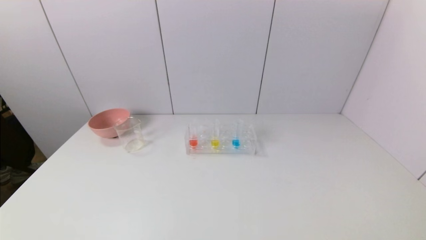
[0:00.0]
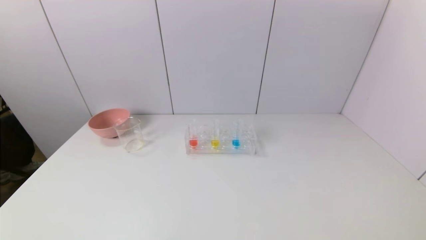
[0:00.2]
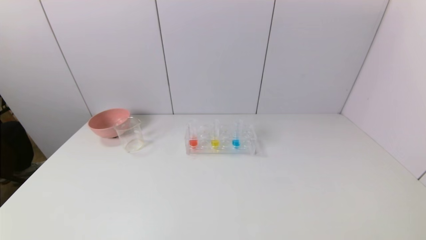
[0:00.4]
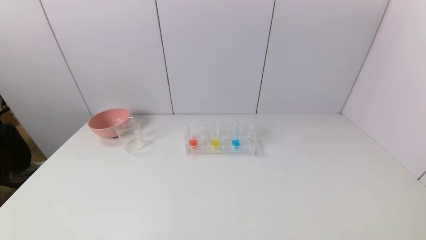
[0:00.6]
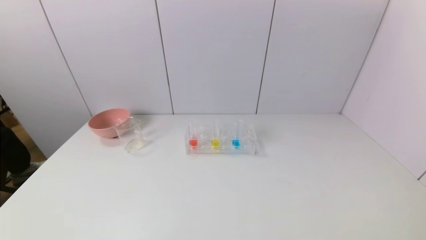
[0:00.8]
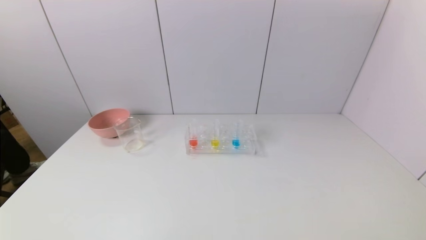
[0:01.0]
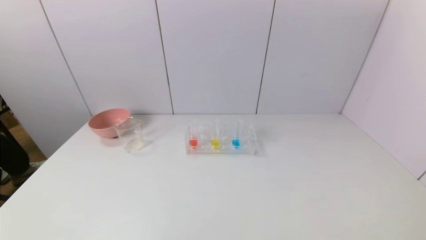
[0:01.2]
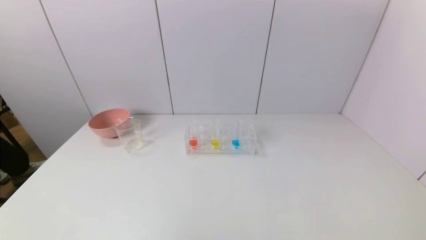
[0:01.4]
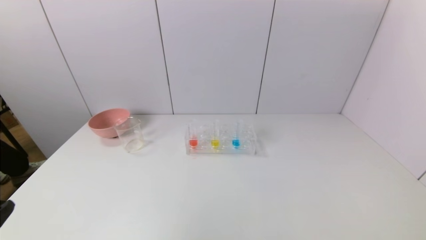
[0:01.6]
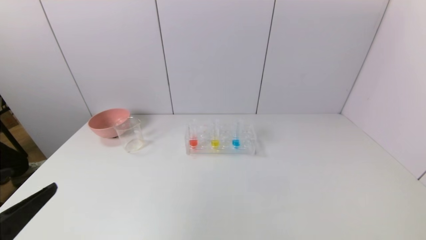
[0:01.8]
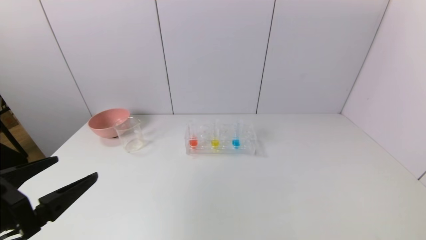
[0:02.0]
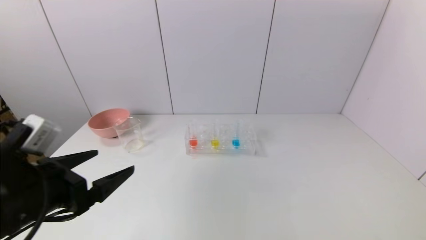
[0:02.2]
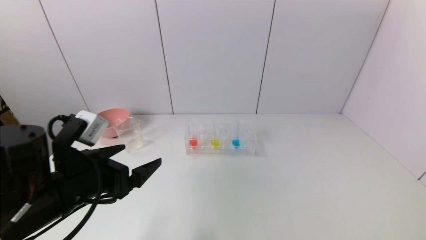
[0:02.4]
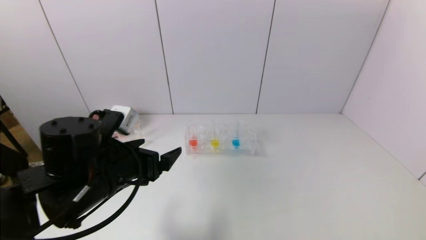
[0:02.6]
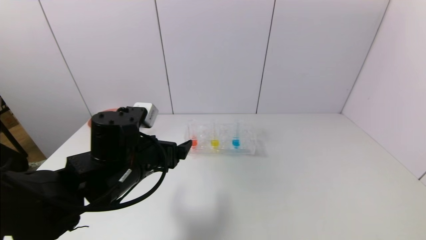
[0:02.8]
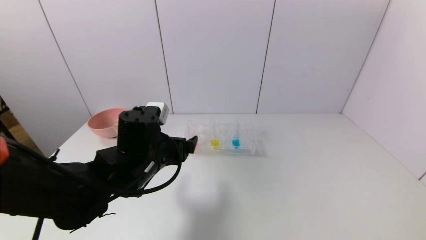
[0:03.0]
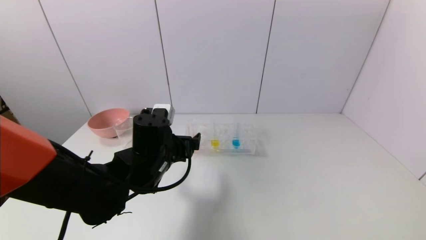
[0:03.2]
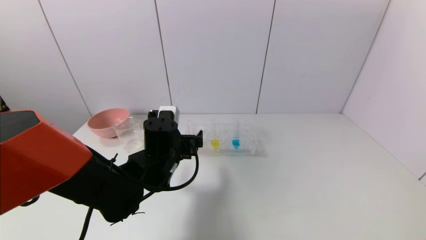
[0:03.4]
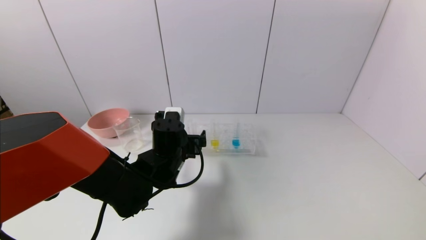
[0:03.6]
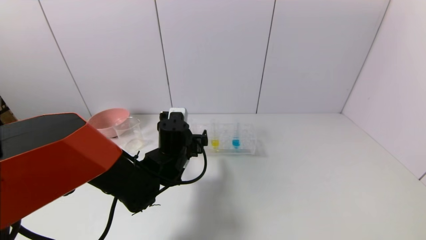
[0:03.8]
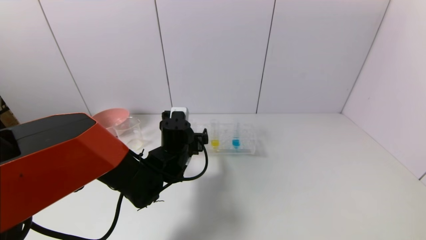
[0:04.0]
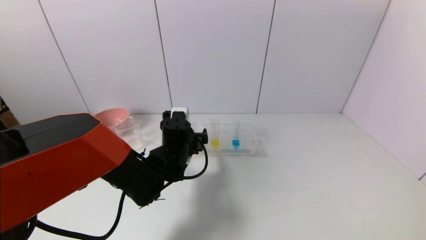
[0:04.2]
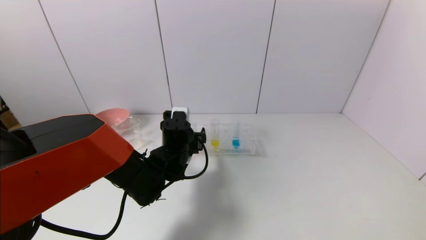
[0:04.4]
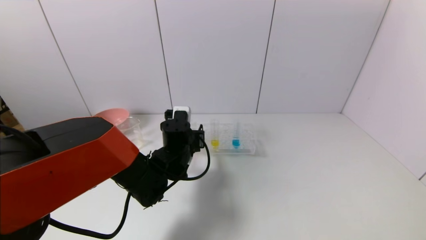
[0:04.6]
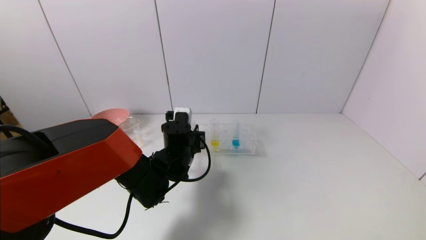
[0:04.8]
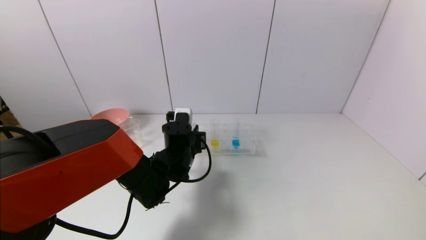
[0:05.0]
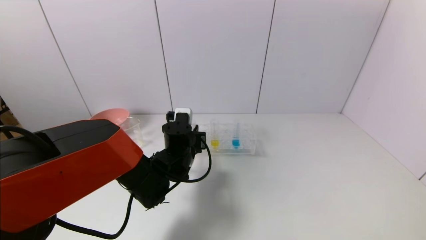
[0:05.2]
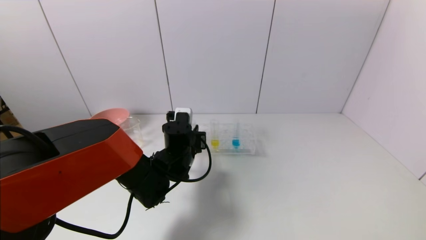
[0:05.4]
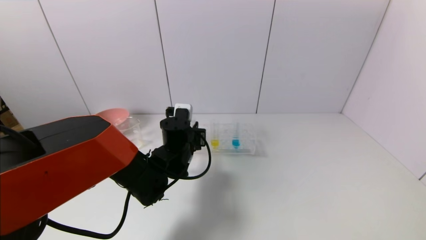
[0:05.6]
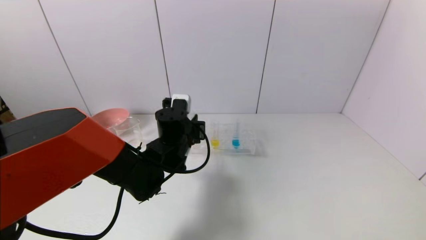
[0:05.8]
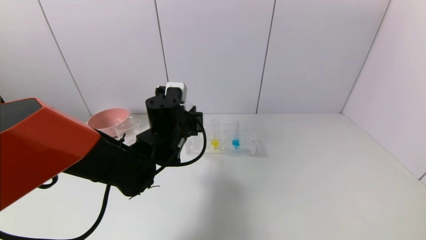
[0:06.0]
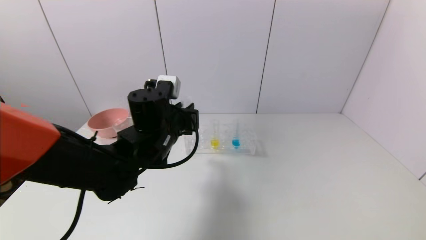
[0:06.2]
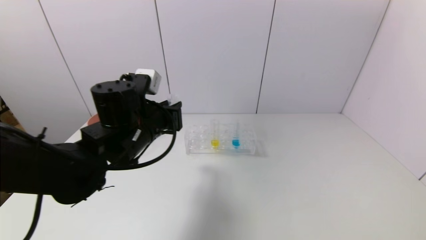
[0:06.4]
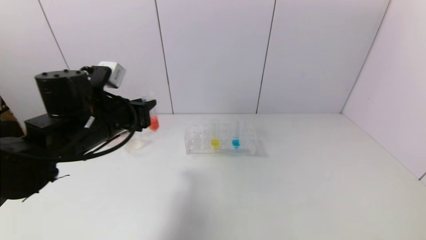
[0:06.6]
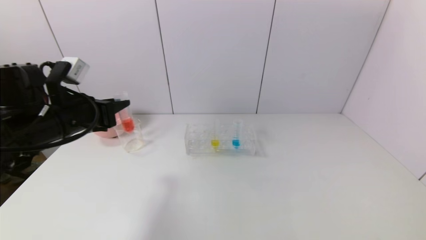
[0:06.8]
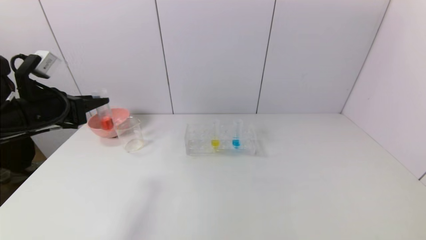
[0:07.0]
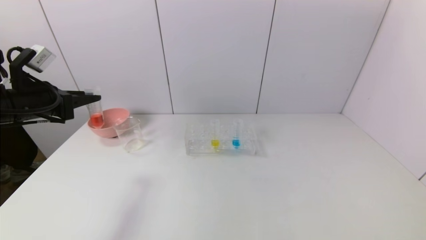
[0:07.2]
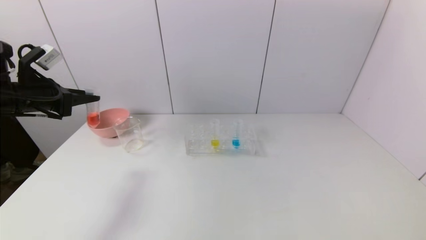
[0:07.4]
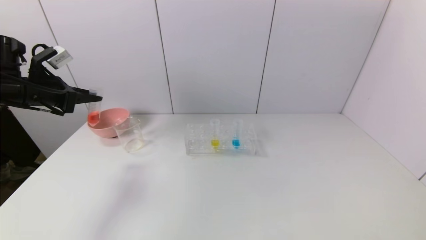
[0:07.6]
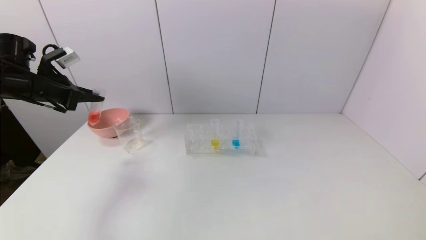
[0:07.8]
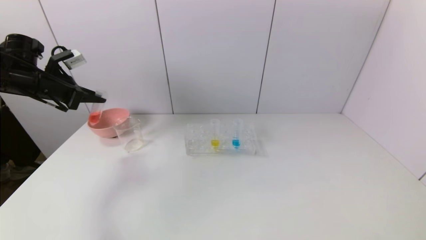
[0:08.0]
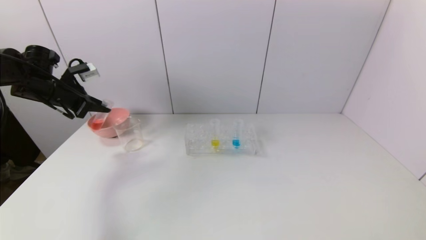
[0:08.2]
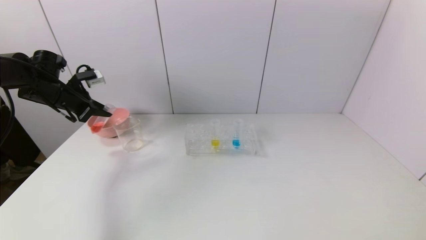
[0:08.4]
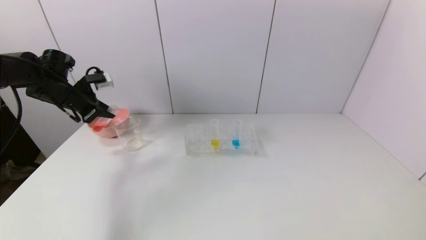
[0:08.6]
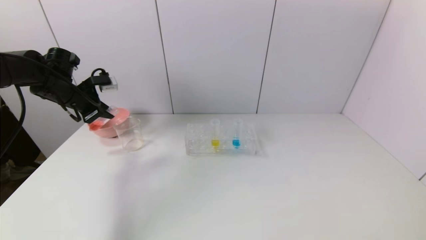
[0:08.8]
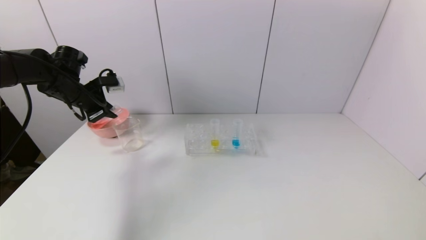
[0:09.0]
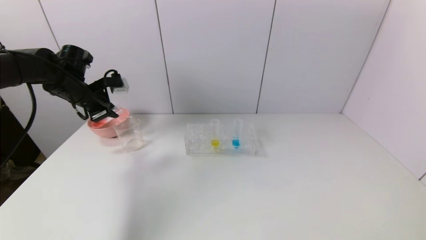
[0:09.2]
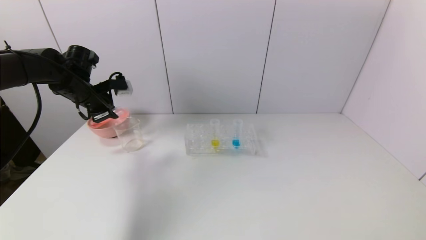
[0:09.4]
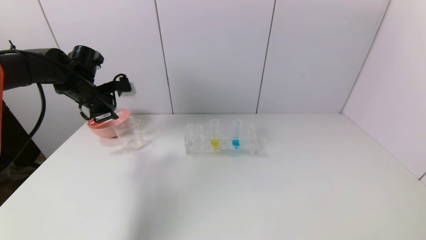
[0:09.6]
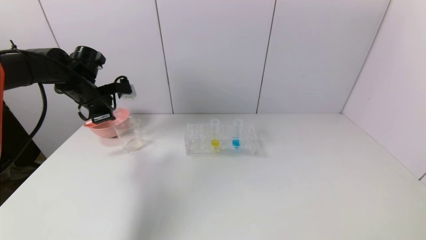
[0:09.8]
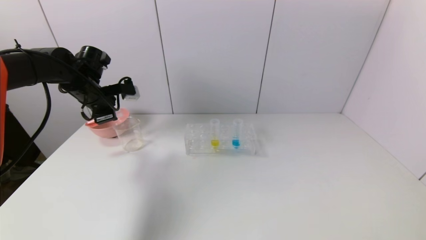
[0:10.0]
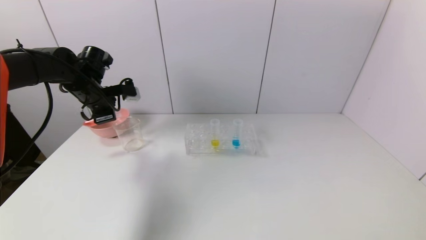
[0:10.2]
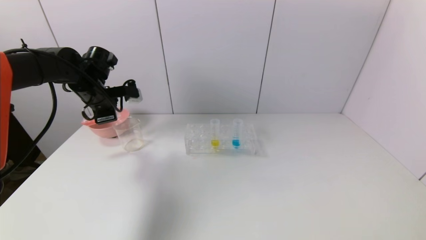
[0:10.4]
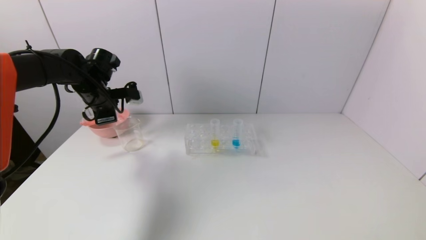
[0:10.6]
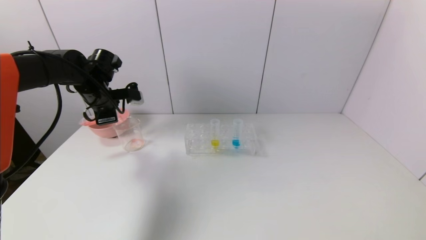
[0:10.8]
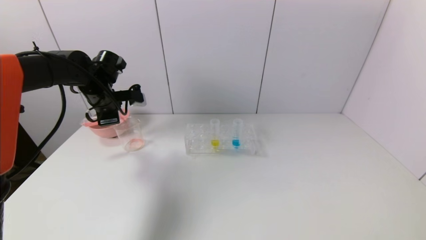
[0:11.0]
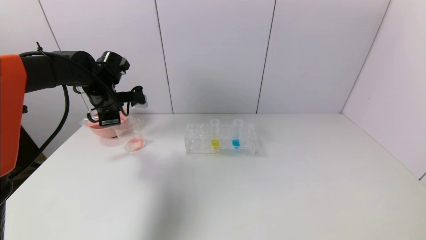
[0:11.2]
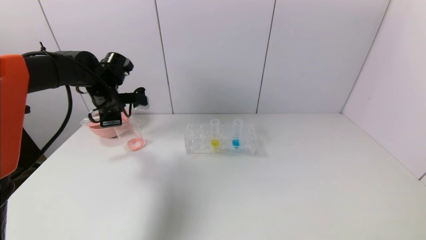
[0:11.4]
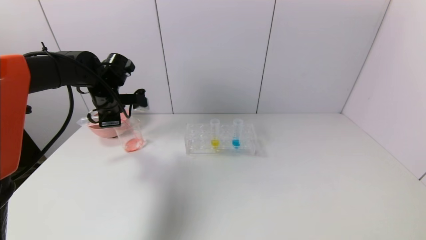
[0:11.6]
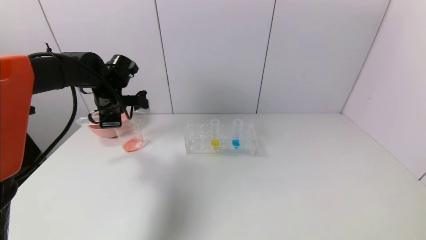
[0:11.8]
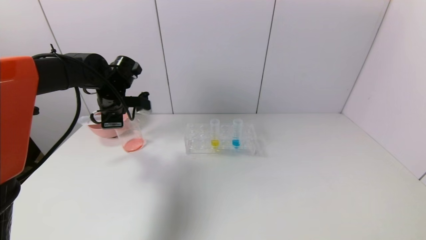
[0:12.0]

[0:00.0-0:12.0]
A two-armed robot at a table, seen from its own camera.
Task of the whole recording: pick up the test tube with yellow pigment and the test tube with red pigment by grippers and pour them into the beaker.
Step, 0:00.0 to 0:05.0: Grasp the red reagent with the left gripper.
0:00.0 to 0:01.6: The left gripper moves upward, approximately 10 cm.
0:01.6 to 0:03.0: The left gripper shifts some 30 cm forward and to the right.
0:03.0 to 0:04.4: The left gripper is displaced forward and downward by some 10 cm.
0:04.4 to 0:06.0: The left gripper heads upward, covering approximately 5 cm, and closes up.
0:06.0 to 0:07.6: The left gripper goes about 30 cm to the left.
0:07.6 to 0:09.0: The left gripper moves forward, roughly 10 cm.
0:09.0 to 0:10.4: The left gripper moves to the right, approximately 5 cm.
0:10.4 to 0:12.0: The grippers move only a little.

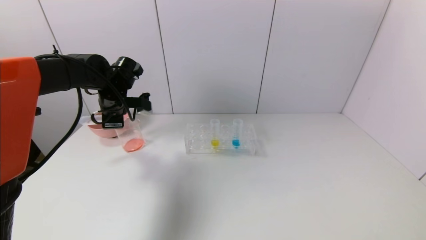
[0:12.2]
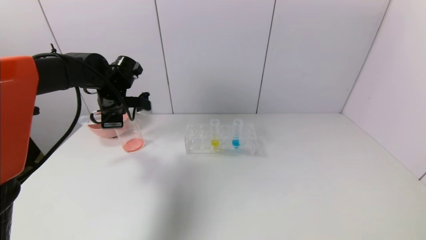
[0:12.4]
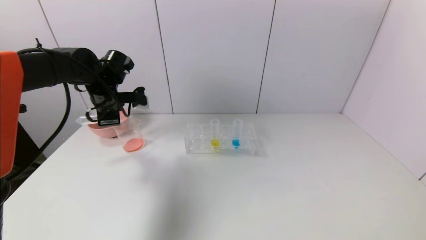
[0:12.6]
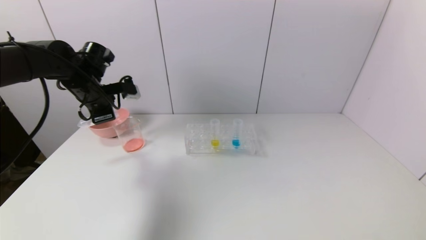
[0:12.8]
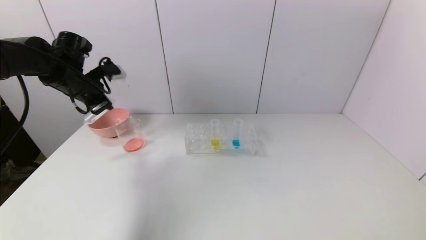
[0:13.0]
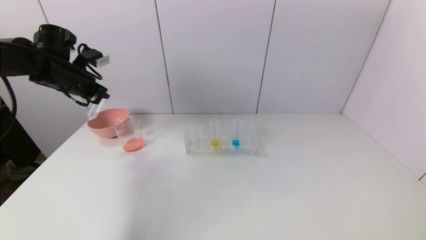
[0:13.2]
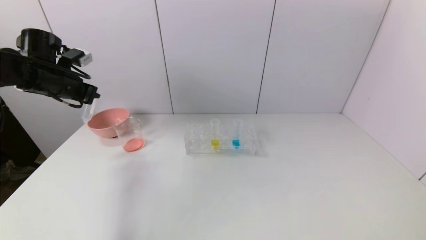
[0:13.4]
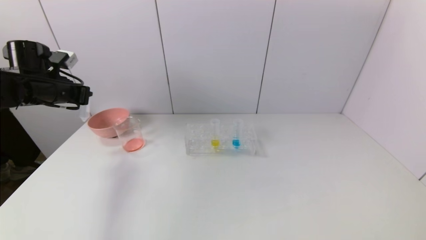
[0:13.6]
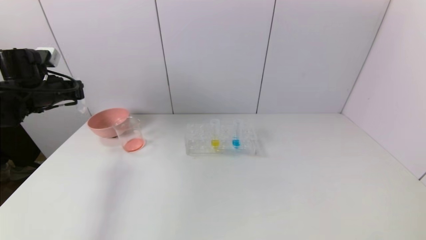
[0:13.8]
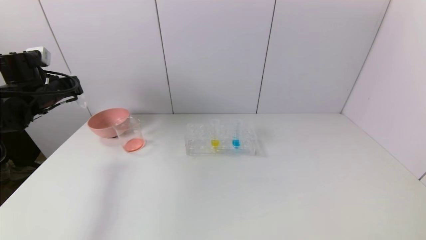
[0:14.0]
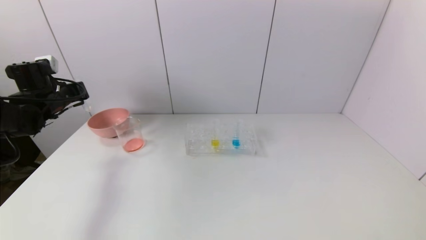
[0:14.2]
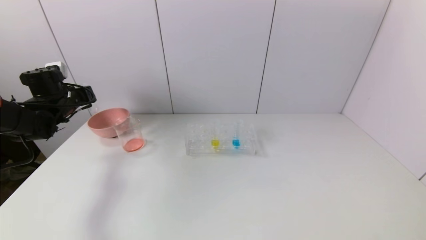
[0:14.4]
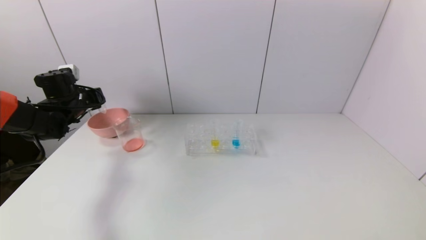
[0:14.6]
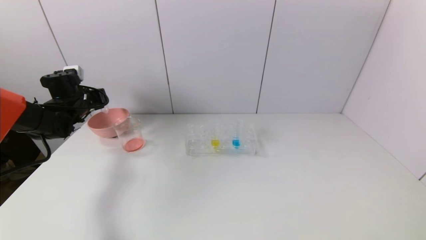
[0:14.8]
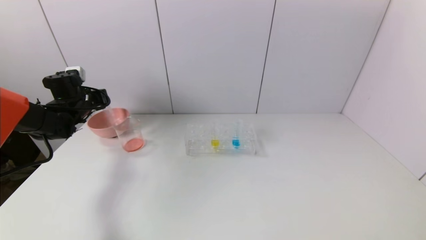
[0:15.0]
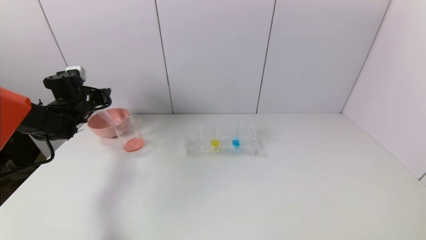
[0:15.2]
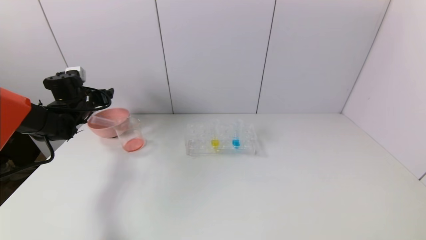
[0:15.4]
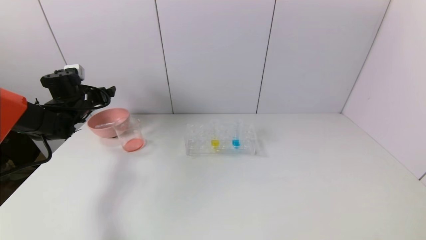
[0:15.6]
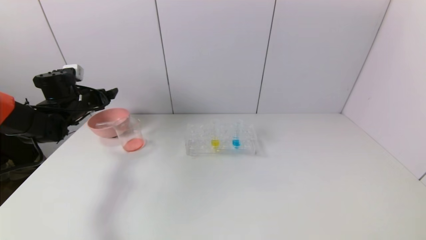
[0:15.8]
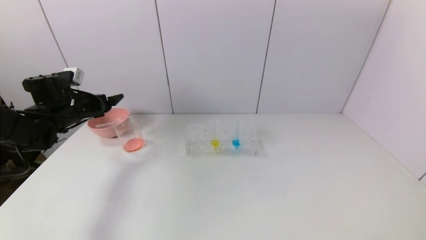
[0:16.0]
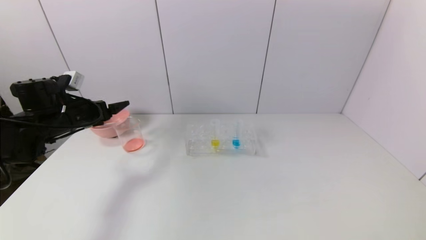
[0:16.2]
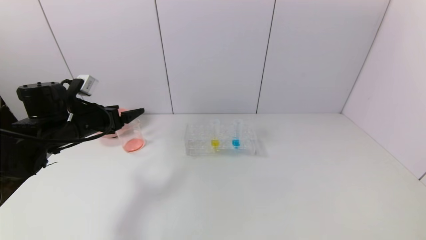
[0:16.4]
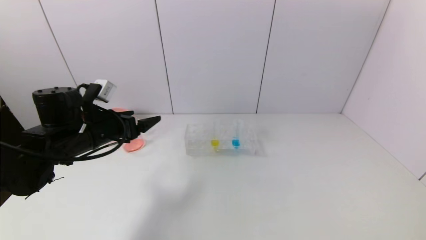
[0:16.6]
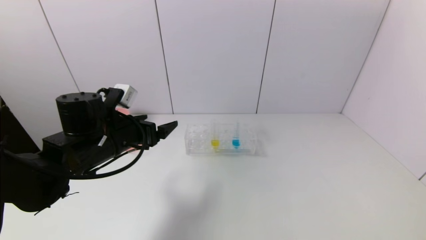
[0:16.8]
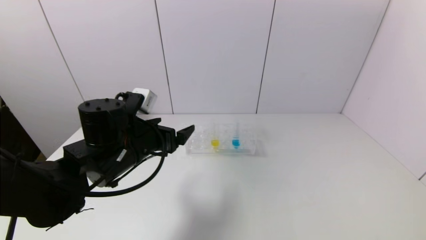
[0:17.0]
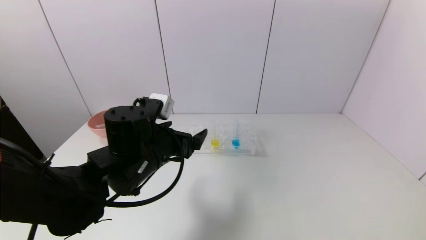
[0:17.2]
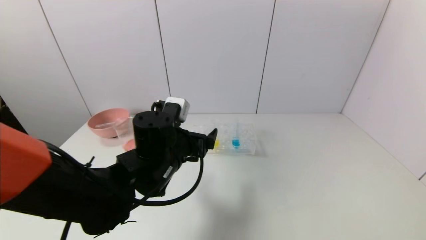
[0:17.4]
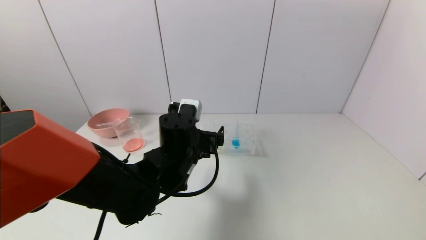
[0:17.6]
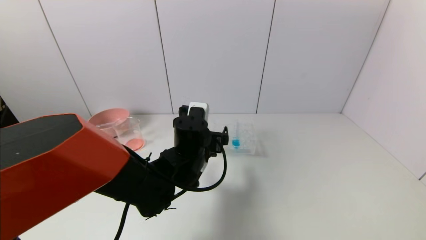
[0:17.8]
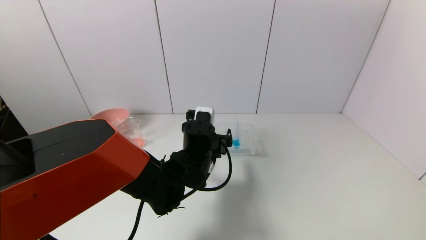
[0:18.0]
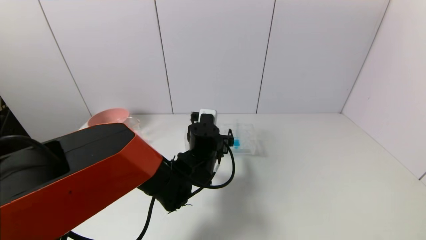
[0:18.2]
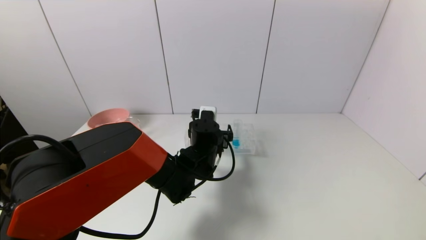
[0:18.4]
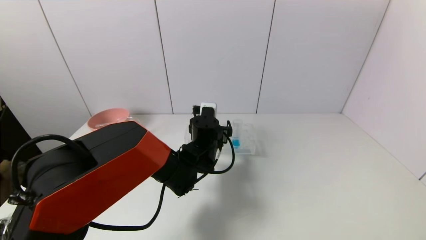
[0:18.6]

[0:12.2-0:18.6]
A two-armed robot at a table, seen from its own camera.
Task of the whole recording: pick up the test tube with yellow pigment and the test tube with red pigment by grippers and pour them into the beaker.
Step, 0:12.6 to 0:15.4: Place the test tube into the pink bowl with the left gripper.
0:12.2 to 0:13.8: The left gripper goes about 15 cm to the left.
0:13.8 to 0:15.4: The left gripper goes some 10 cm forward and downward, and opens.
0:15.4 to 0:17.0: The left gripper goes approximately 30 cm to the right and backward.
0:17.0 to 0:18.6: The left gripper heads to the right, forward and downward, covering about 20 cm.
